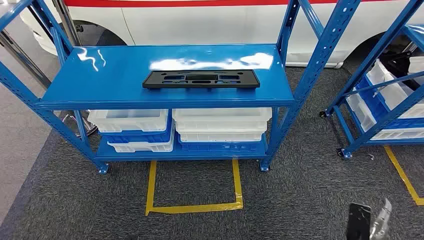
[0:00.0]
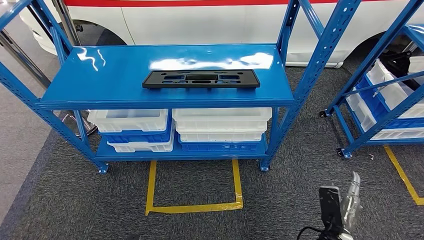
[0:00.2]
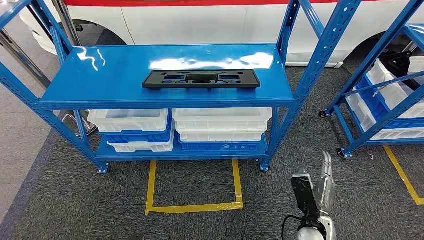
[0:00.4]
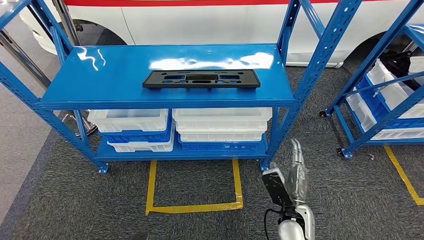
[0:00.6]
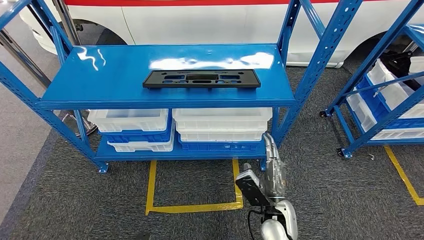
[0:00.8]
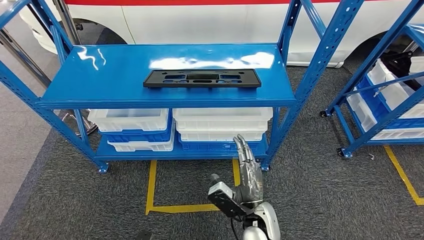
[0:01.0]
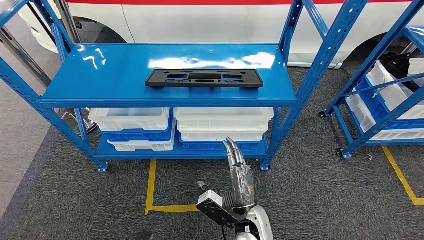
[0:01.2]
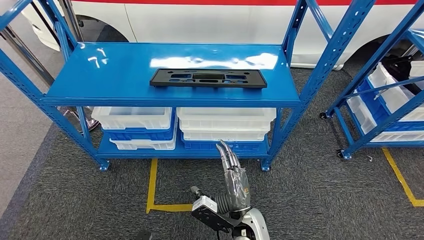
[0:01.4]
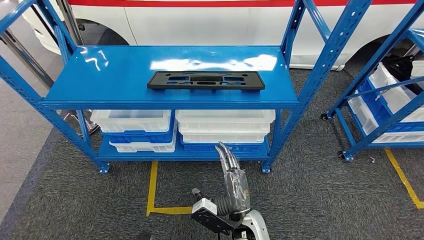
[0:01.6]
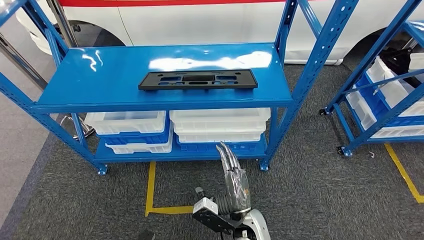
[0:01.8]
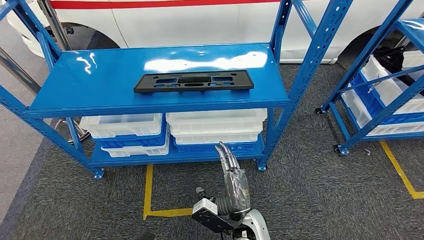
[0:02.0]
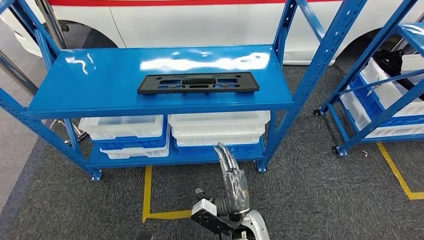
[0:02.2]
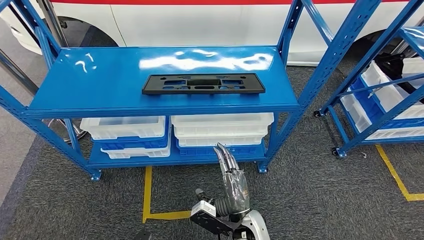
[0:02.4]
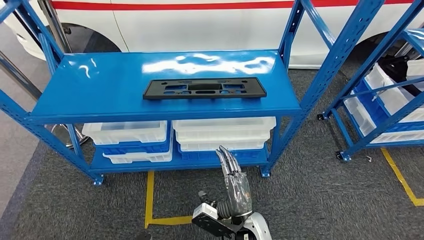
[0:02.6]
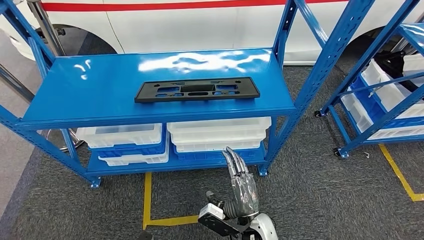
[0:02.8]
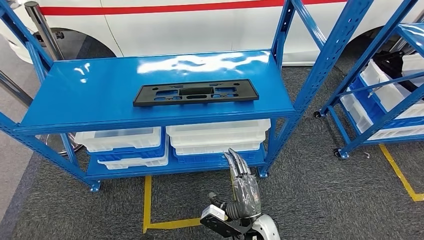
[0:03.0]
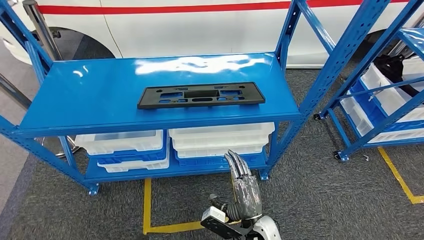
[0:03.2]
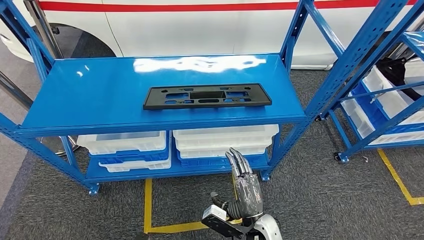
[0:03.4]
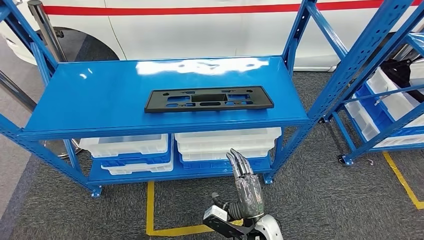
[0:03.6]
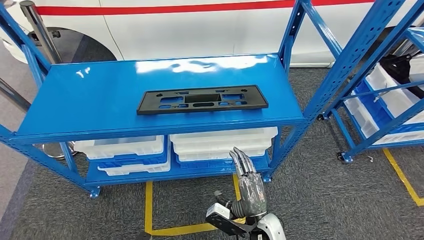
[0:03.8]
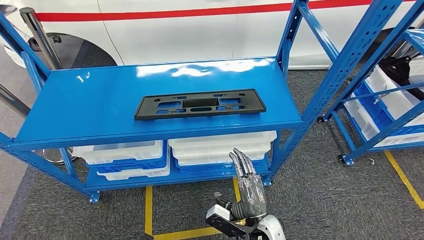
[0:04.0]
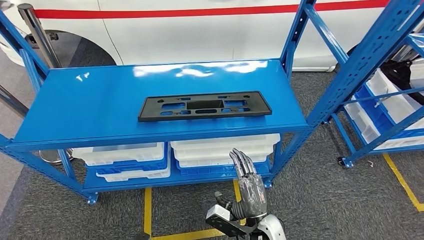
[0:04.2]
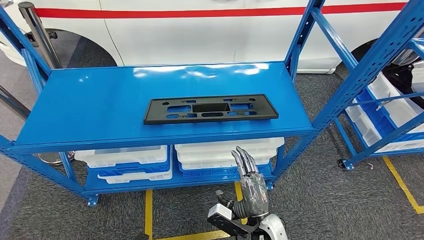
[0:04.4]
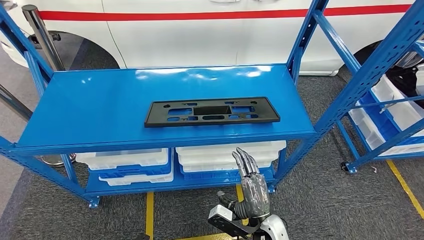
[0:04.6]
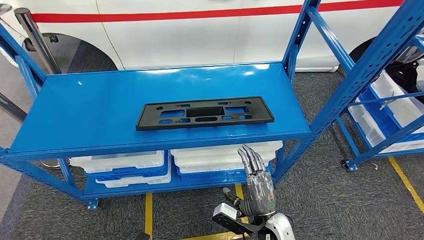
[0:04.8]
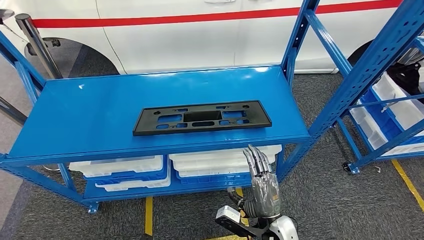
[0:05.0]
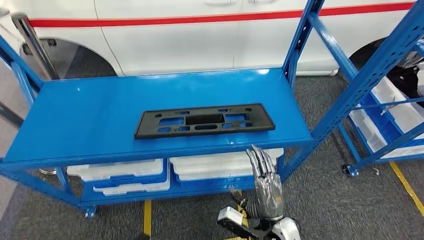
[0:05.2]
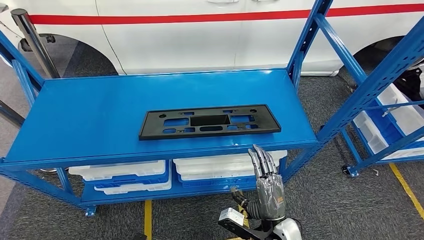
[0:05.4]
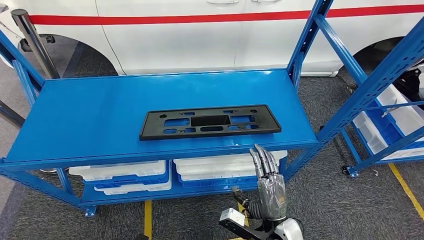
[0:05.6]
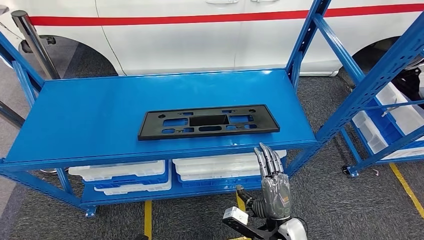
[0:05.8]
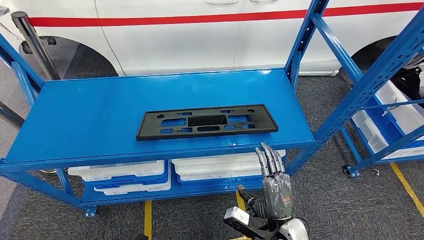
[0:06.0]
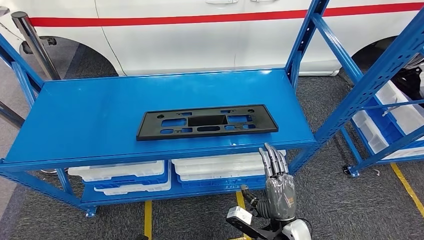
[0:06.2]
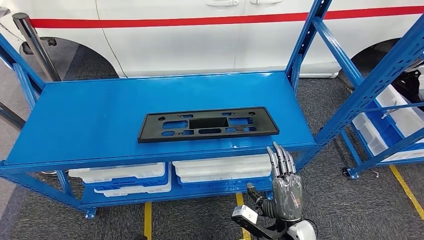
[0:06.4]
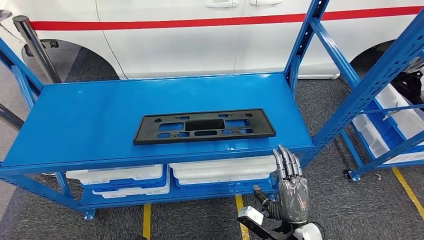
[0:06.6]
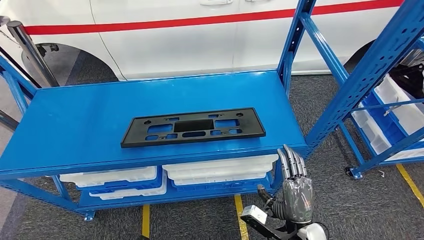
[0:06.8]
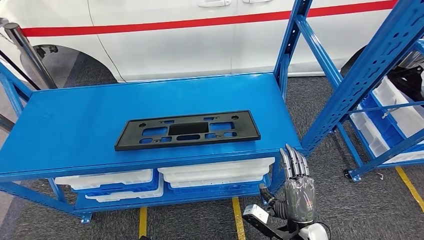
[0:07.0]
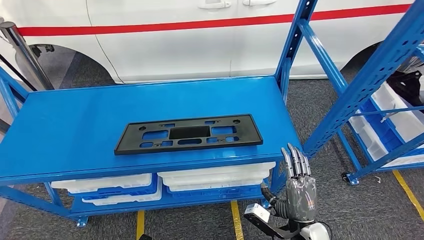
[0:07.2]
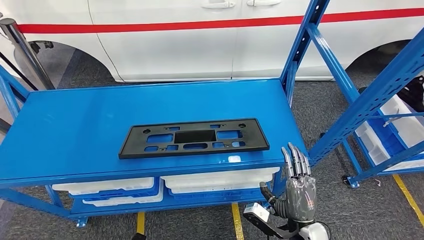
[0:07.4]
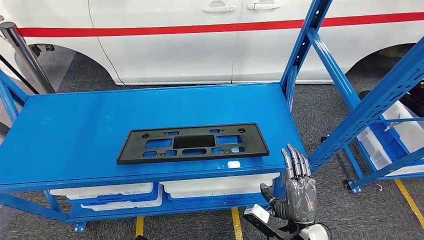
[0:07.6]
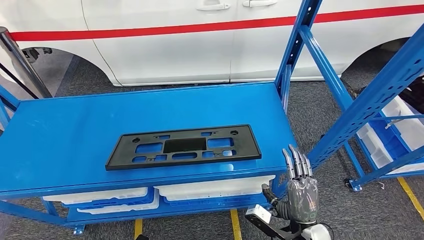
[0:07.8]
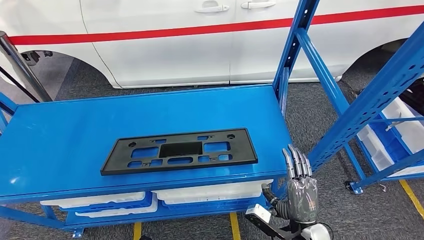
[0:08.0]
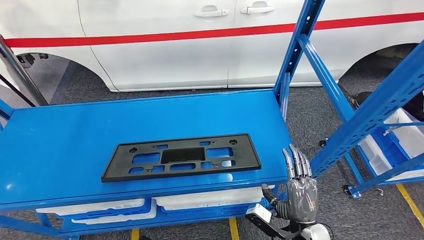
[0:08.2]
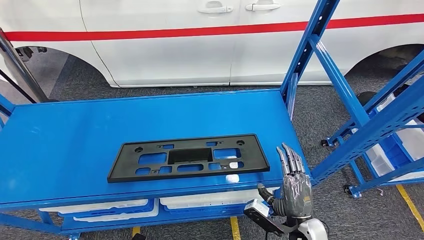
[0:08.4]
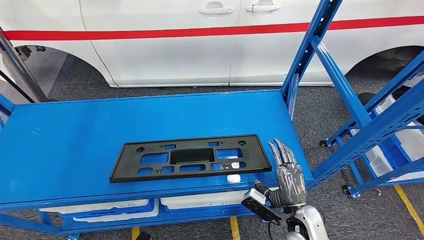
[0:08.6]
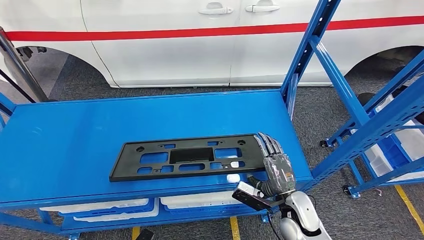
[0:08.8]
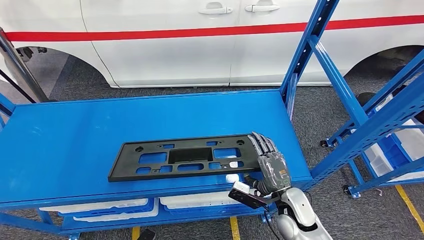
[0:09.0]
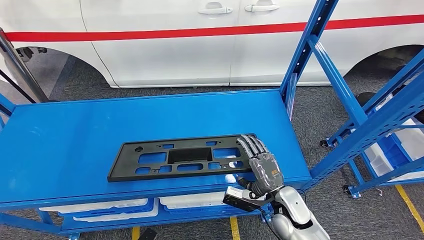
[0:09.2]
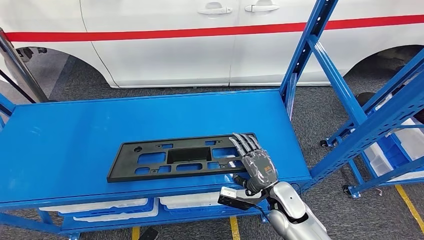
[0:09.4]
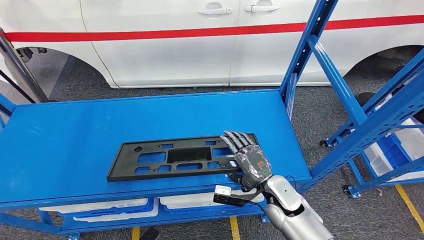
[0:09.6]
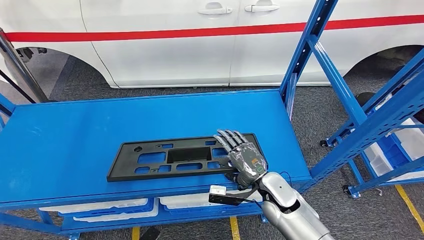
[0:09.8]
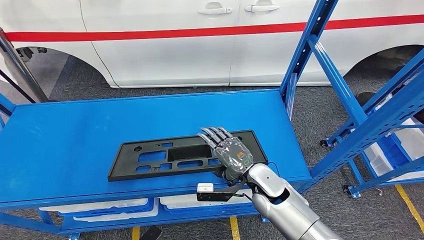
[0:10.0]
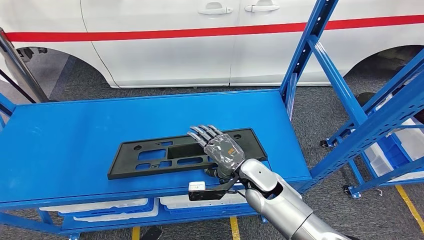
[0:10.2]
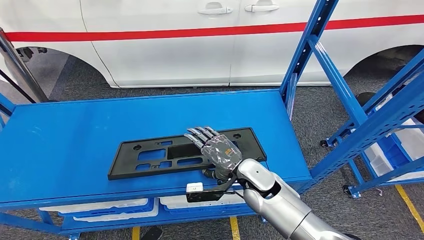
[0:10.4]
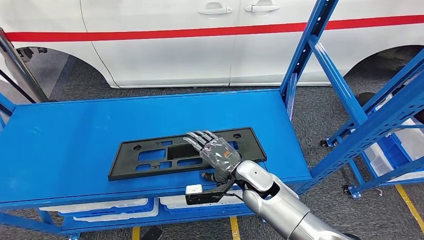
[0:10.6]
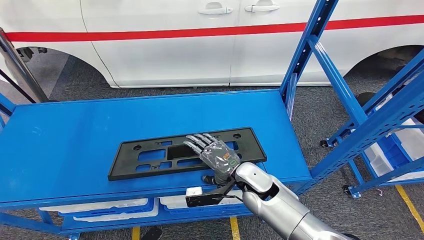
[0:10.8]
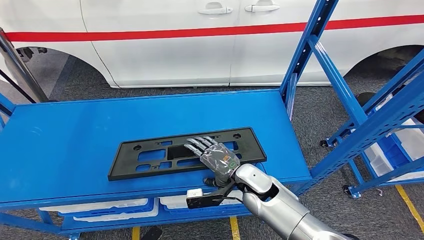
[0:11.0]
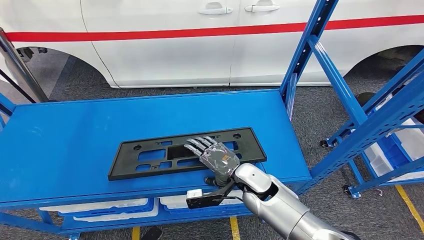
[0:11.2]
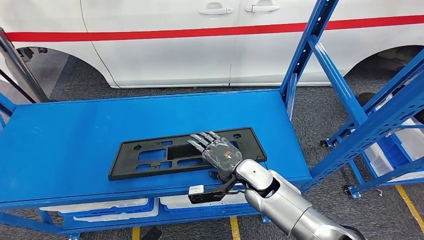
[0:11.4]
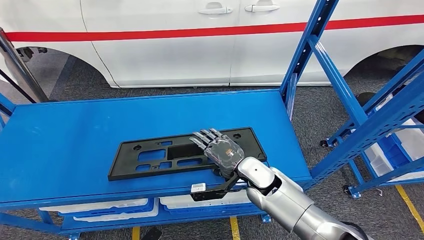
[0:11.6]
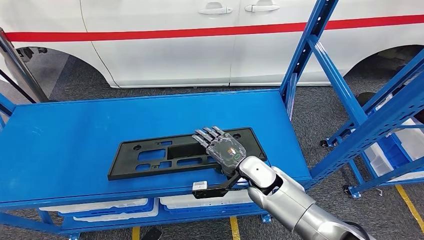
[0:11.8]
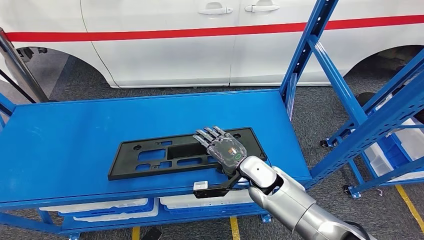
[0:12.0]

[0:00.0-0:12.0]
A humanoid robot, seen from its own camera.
0:09.0 to 0:10.4: The right hand heads to the left, upward and forward, covering roughly 15 cm.
0:10.4 to 0:12.0: There are only small adjustments of the hands.

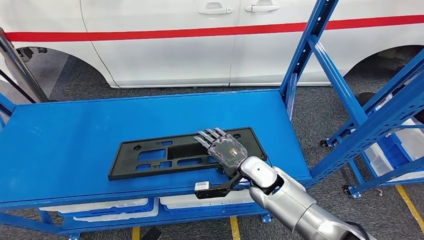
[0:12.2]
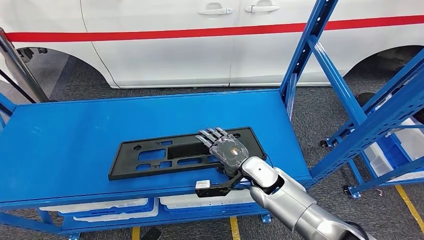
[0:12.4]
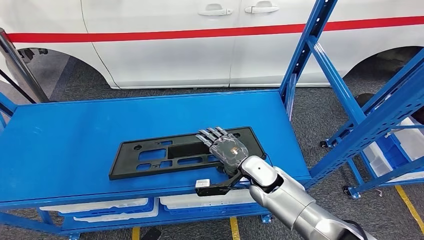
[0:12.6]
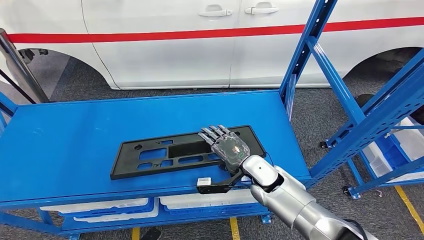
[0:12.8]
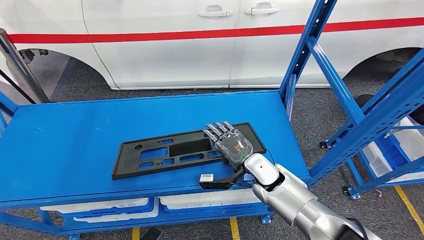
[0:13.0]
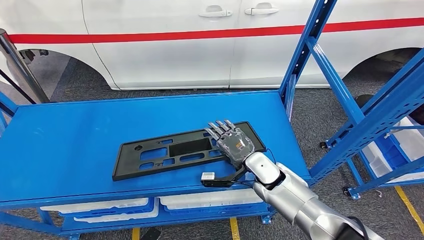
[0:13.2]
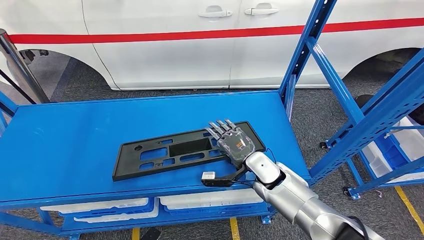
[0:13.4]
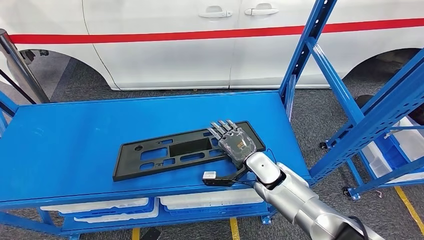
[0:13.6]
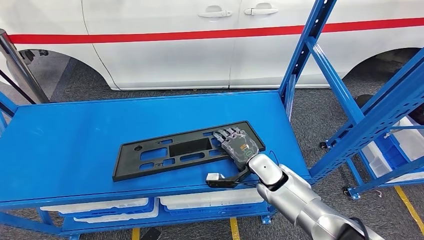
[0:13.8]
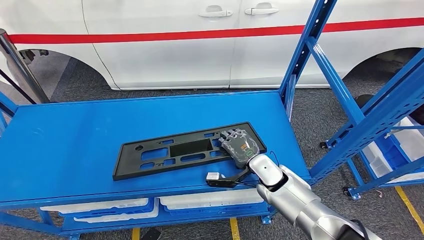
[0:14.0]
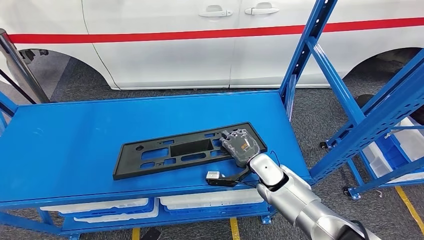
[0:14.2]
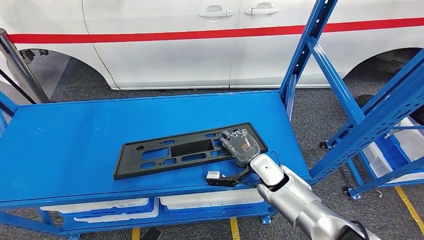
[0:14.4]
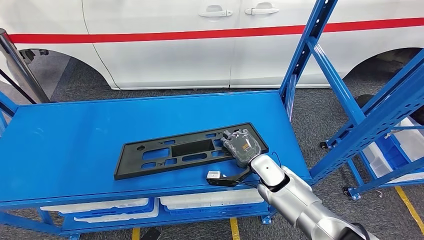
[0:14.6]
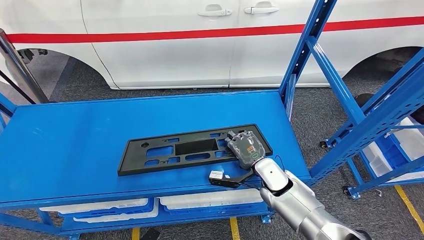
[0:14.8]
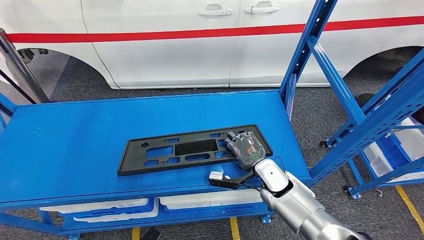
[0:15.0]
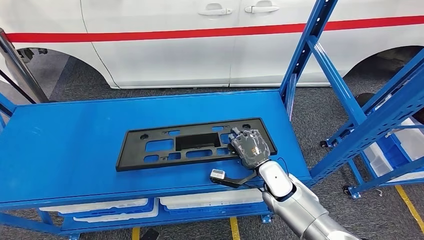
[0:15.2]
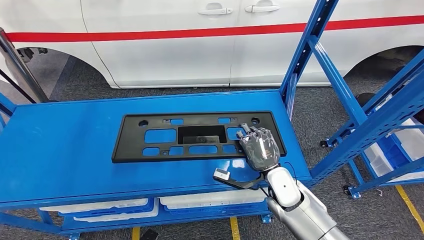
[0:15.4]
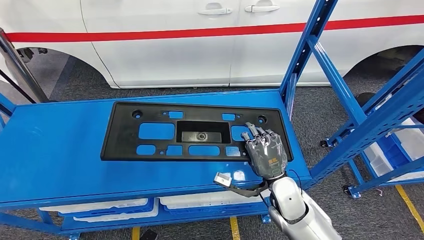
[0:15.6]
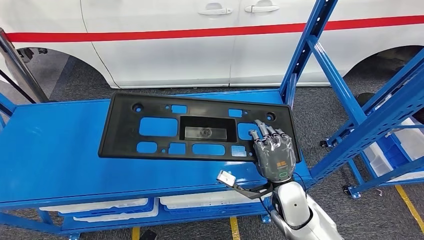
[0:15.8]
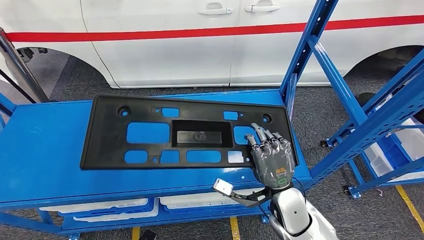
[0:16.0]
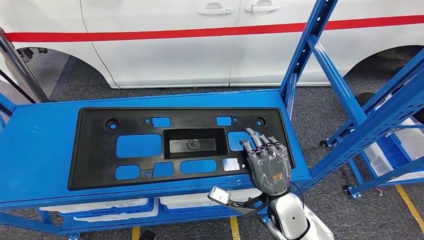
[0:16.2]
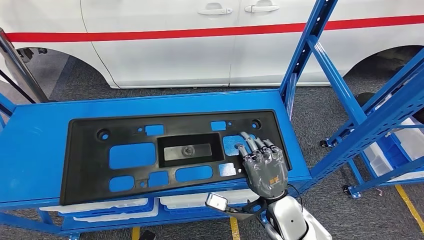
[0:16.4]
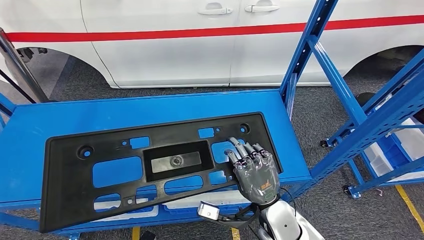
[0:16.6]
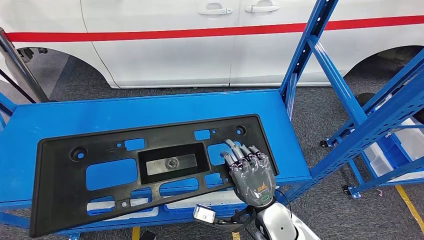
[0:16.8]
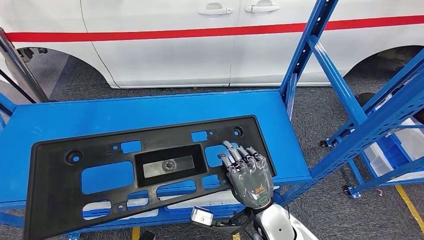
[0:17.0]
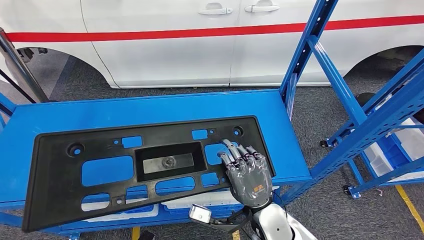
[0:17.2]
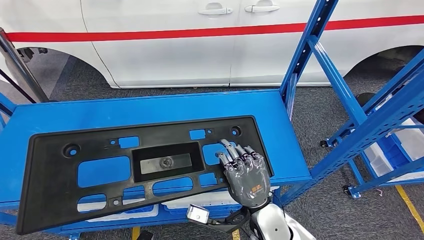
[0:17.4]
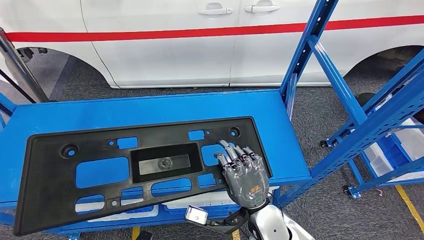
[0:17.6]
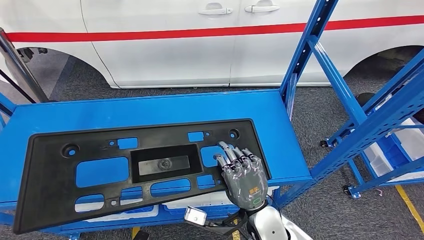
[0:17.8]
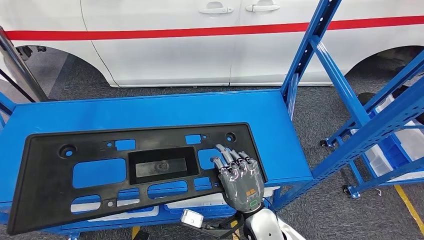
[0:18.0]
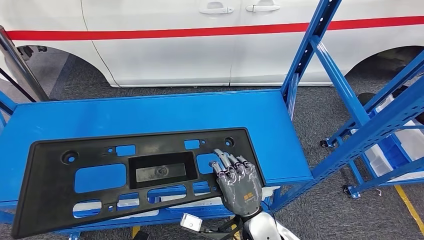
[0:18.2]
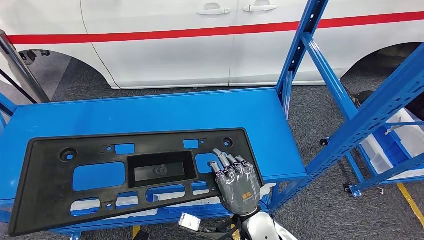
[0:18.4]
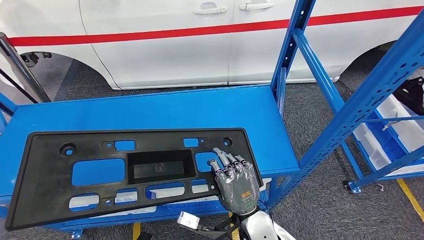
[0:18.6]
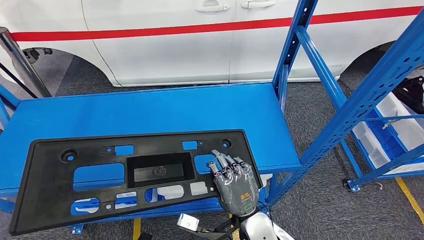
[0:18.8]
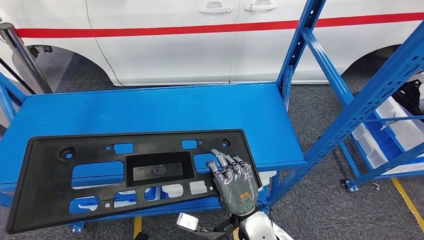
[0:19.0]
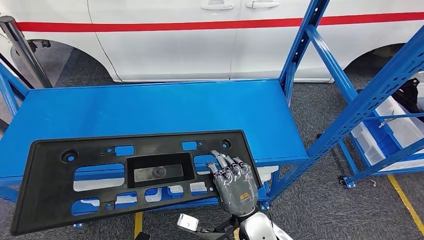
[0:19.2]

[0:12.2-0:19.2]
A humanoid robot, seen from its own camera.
Step, 0:12.2 to 0:16.0: Pick up the large material from the shelf.
0:13.6 to 0:15.0: The hands make only small movements.
